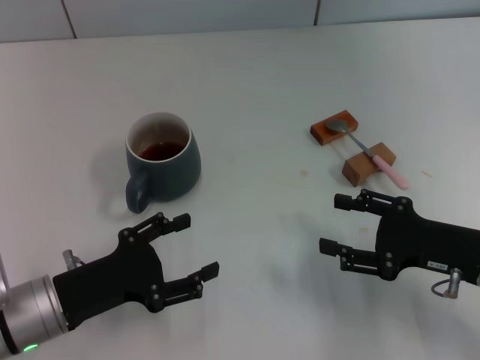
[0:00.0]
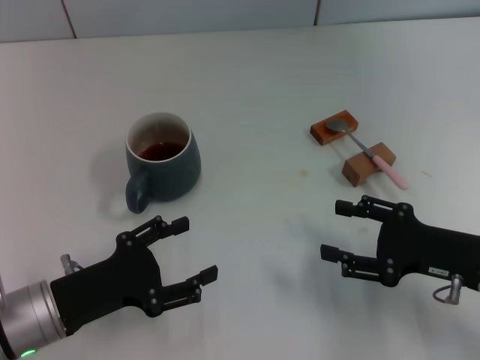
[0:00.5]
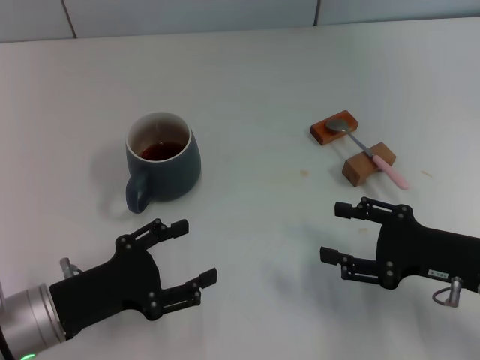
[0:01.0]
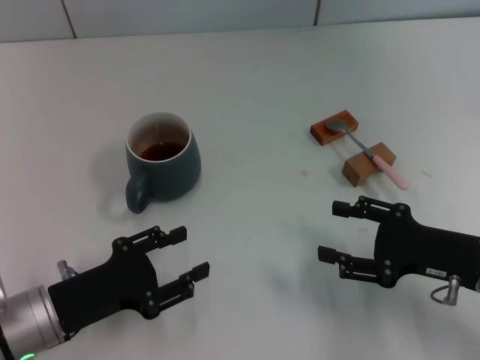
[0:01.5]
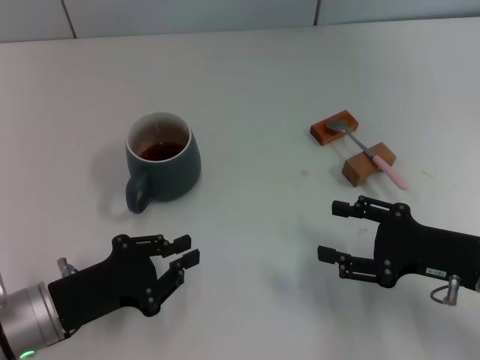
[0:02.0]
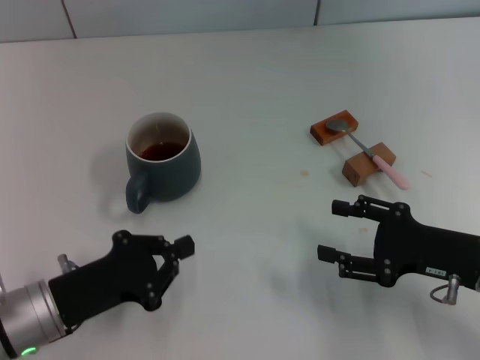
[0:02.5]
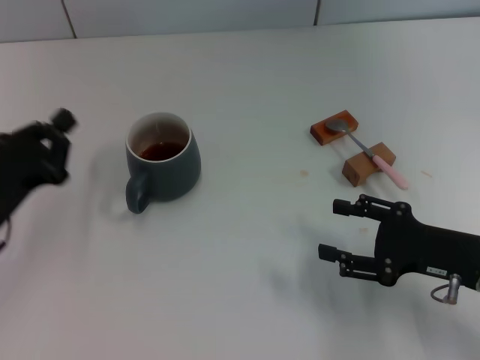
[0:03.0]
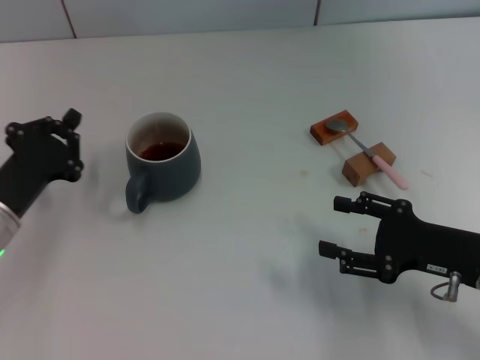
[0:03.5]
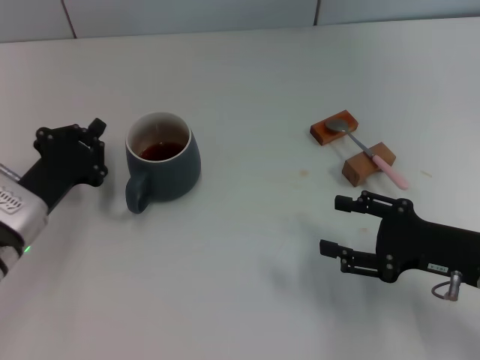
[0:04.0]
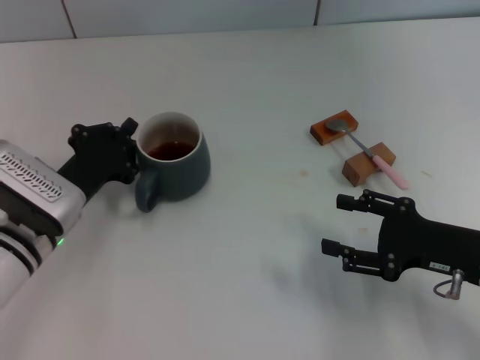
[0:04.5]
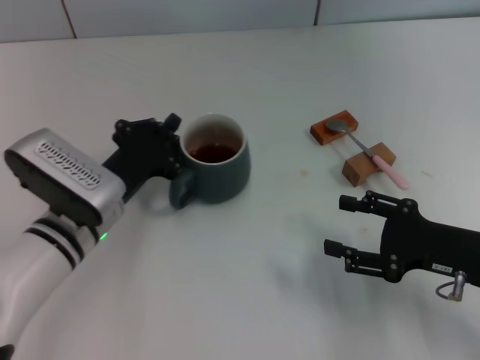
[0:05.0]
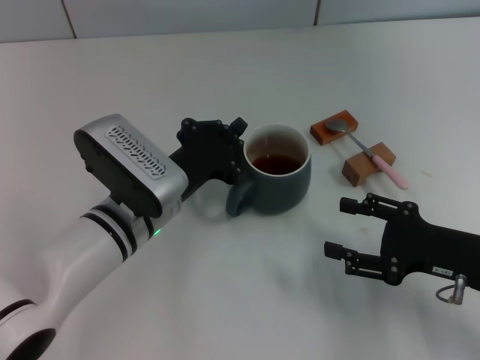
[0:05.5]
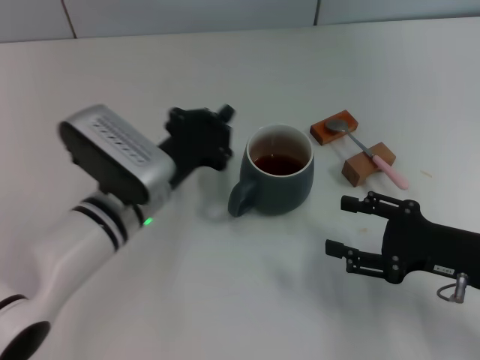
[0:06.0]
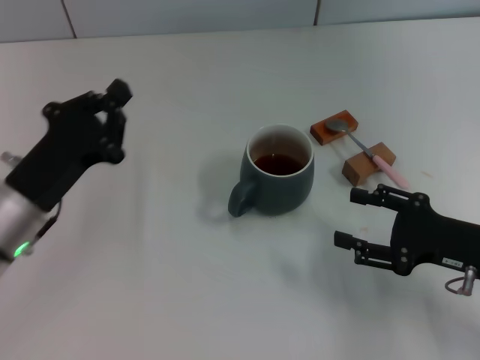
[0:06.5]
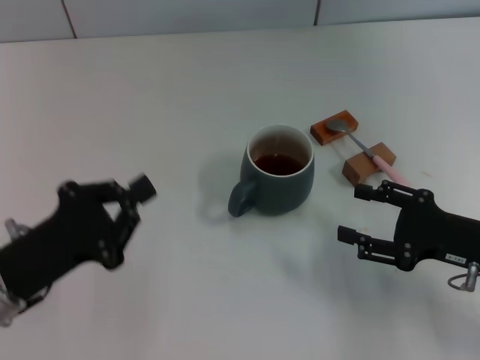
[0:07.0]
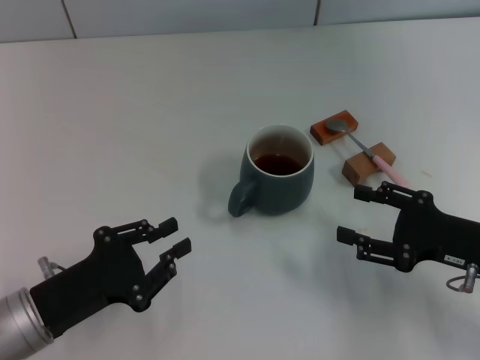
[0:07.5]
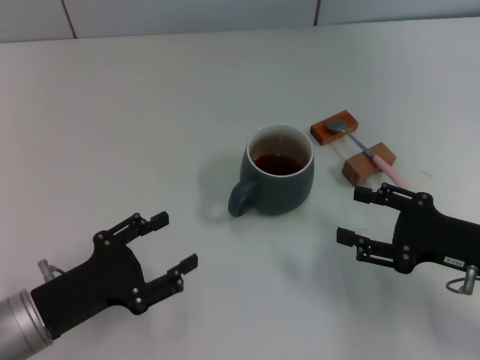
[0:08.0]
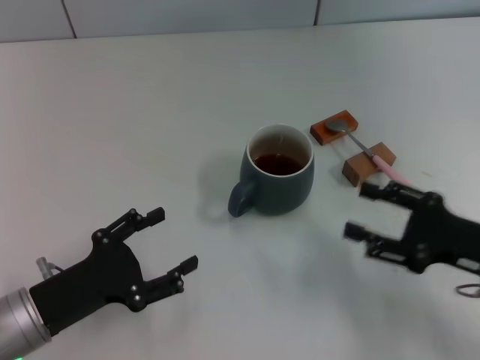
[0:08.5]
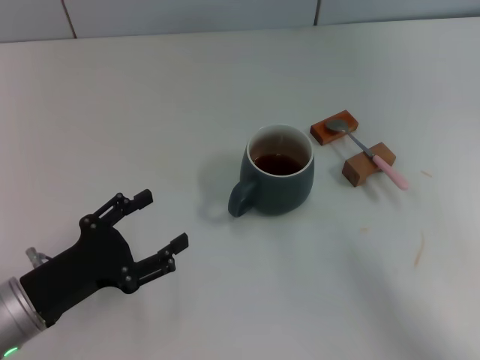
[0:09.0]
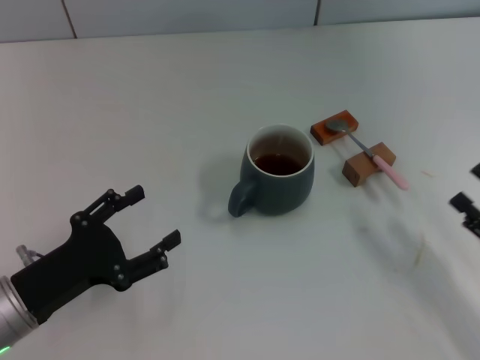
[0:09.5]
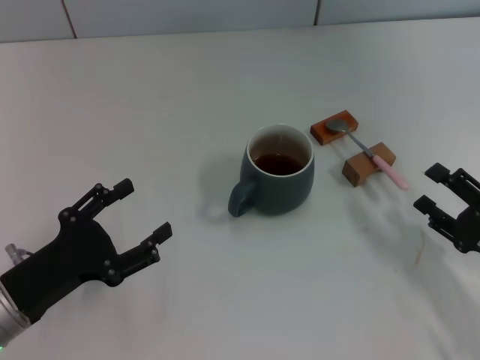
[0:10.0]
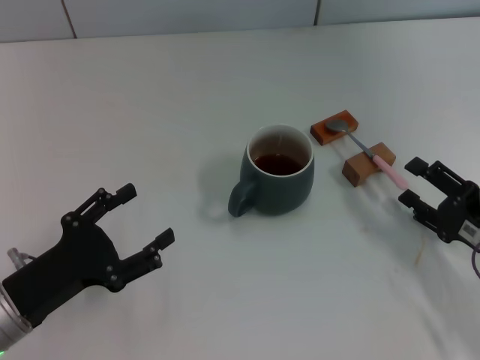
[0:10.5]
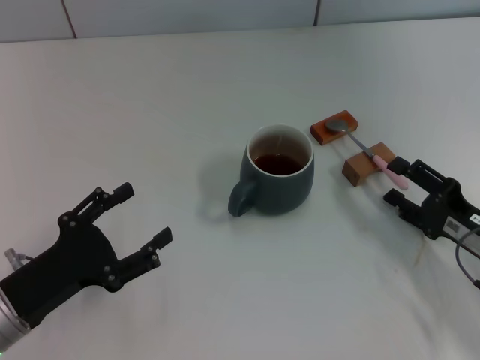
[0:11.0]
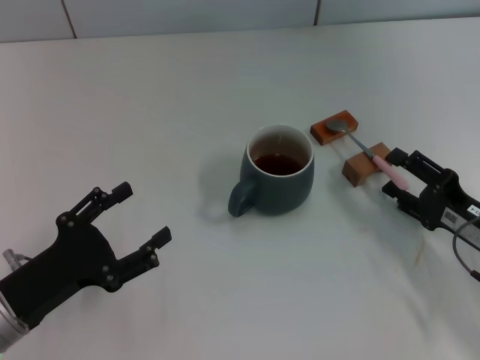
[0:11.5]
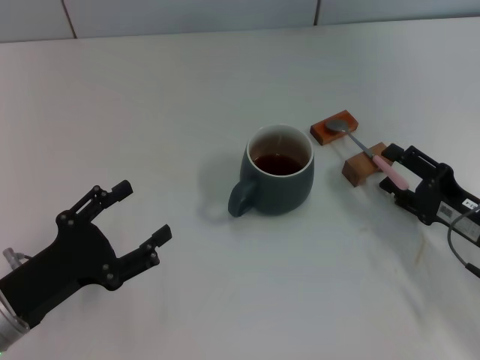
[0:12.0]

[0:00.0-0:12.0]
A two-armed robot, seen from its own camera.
Task of the whole recording: Move the grey cup to the center, lift the pink spoon, stir it three times in the cup, and put the spoon into the cup.
Step, 0:00.0 to 0:06.0: Move the cup with coffee to the center of view with the left gripper.
0:00.0 to 0:02.0: The left gripper closes up.
0:02.0 to 0:04.0: The left gripper shifts approximately 10 cm forward, and closes.
0:04.0 to 0:06.0: The left gripper goes roughly 10 cm to the right.
0:06.0 to 0:08.0: The left gripper goes approximately 15 cm to the left and backward, and opens.
0:08.0 to 0:10.0: The left gripper opens.
0:10.0 to 0:12.0: The right gripper is displaced forward by approximately 5 cm.

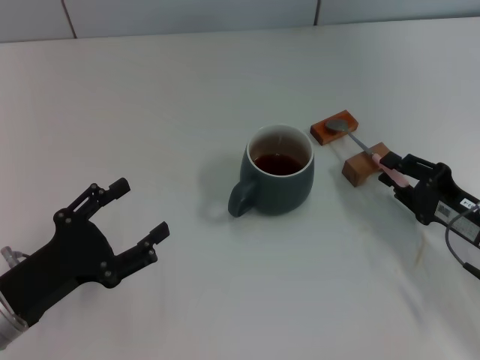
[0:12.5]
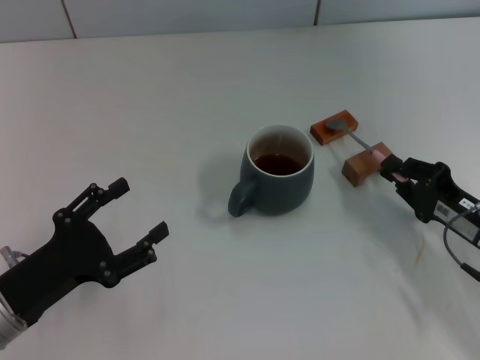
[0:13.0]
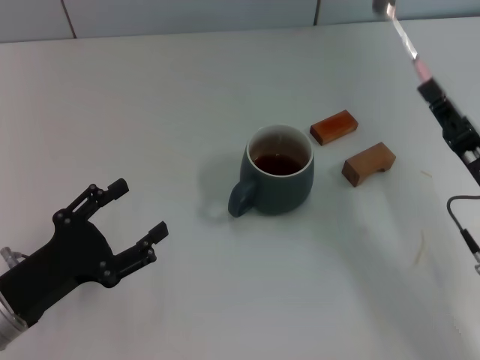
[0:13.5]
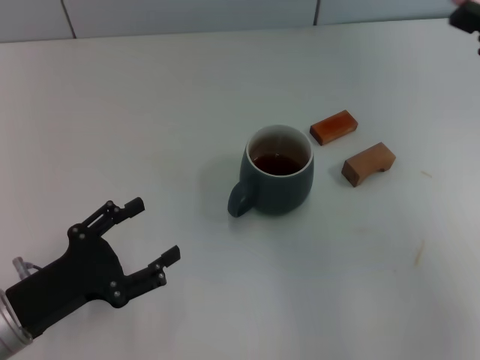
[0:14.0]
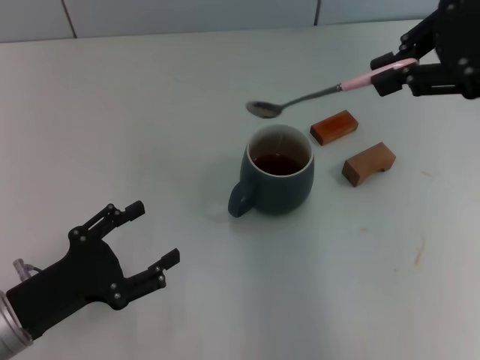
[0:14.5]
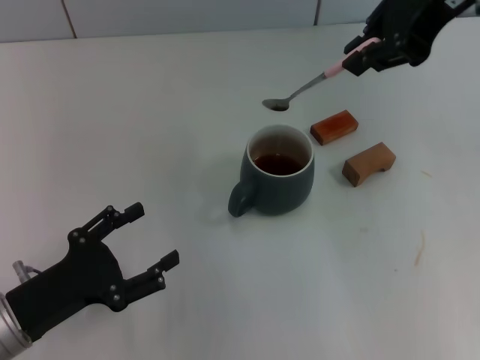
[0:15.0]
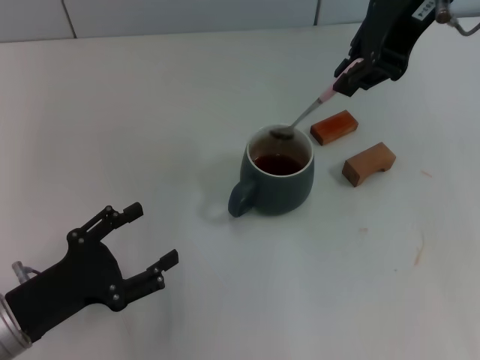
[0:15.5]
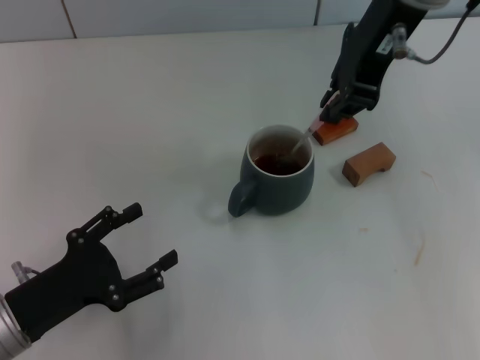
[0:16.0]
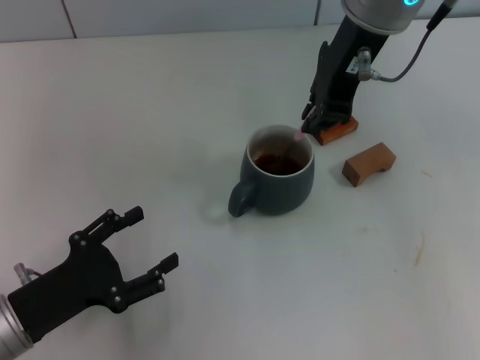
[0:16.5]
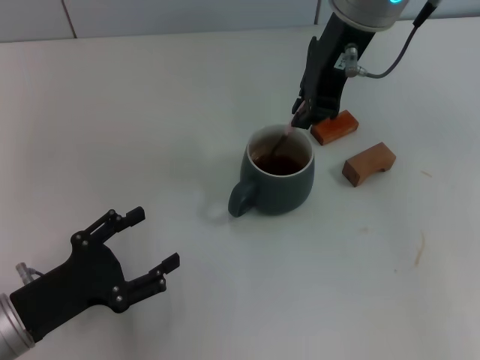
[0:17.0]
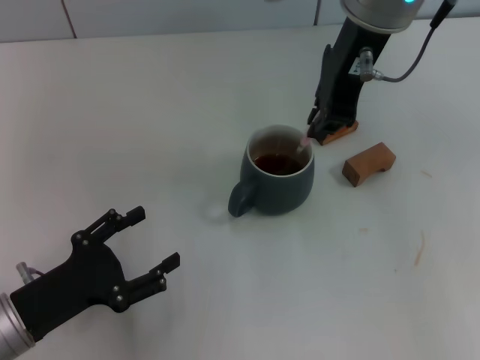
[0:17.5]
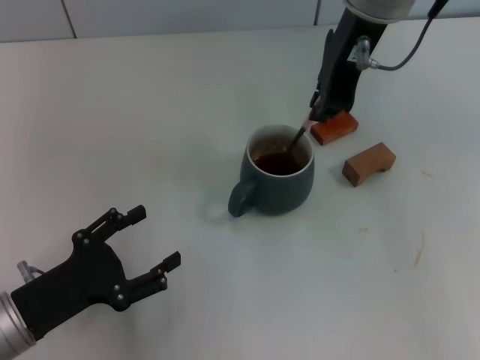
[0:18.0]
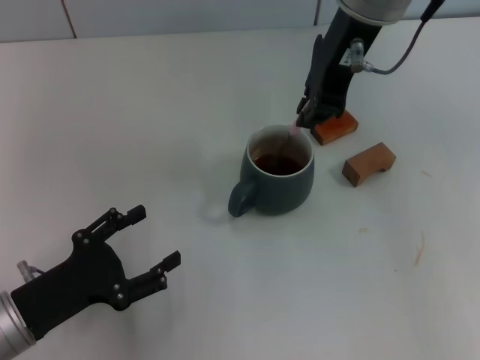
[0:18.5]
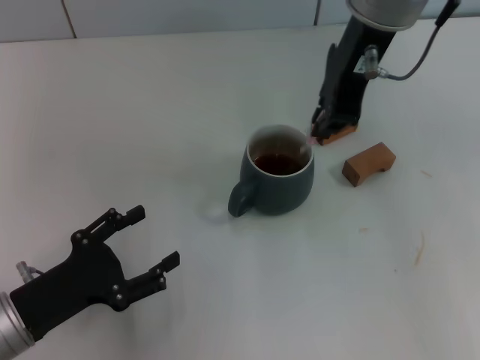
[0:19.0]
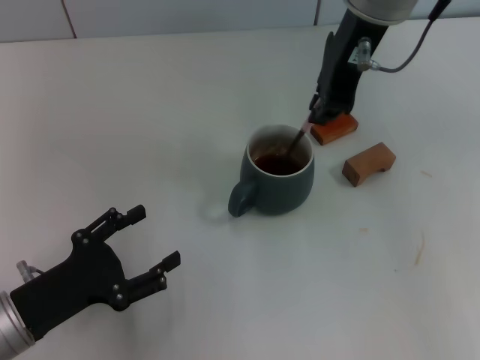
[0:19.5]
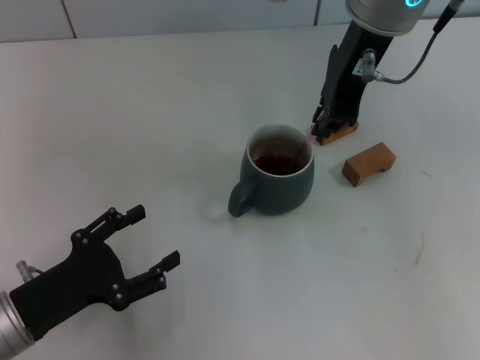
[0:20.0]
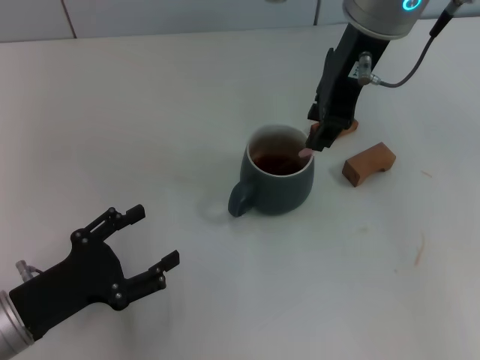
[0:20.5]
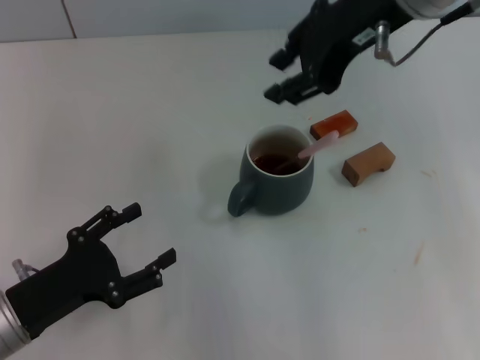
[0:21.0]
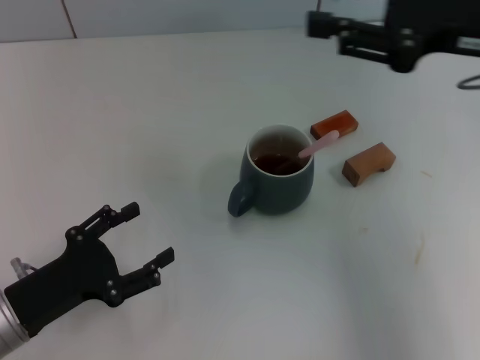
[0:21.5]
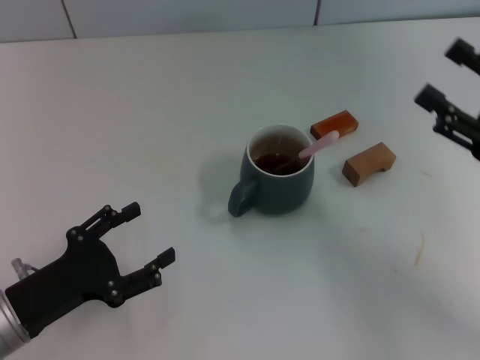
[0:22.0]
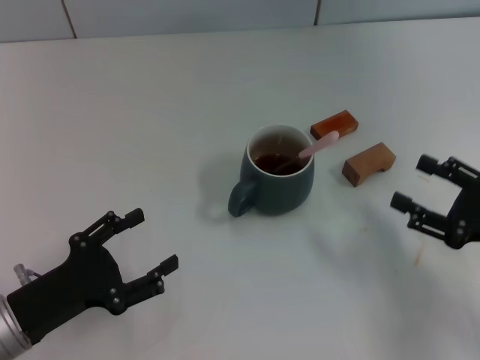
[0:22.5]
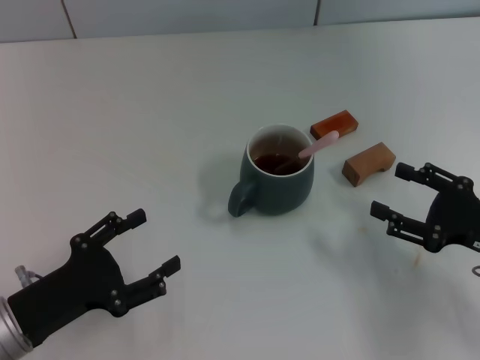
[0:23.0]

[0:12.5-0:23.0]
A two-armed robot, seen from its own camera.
Task of the whole recording: Move the grey cup to the center, lift the pink spoon, stir it three times in the cup, and put the spoon into the cup.
Step, 0:14.0 to 0:20.5: Stir the coffee in the cup with the right gripper.
0:12.5 to 0:14.5: The right gripper shifts roughly 30 cm upward, and closes.
0:14.5 to 0:16.5: The right gripper heads to the left, covering roughly 15 cm.
0:16.5 to 0:19.0: The two grippers keep their place.
0:19.0 to 0:21.0: The right gripper opens.
0:21.0 to 0:23.0: The right gripper moves downward, to the right and backward, some 35 cm, and opens its fingers.

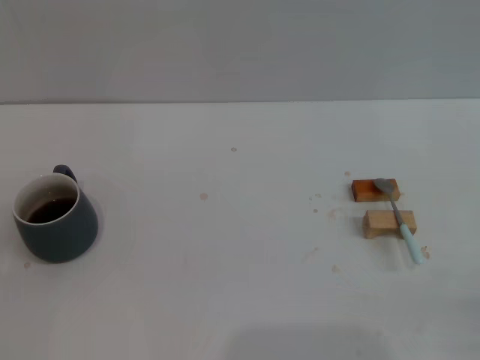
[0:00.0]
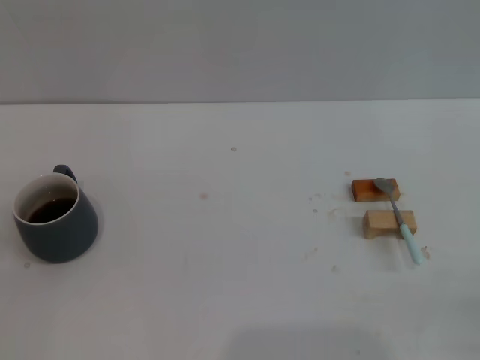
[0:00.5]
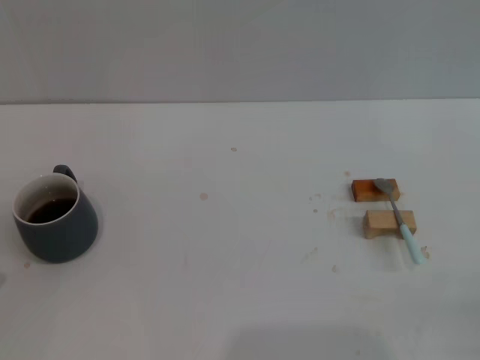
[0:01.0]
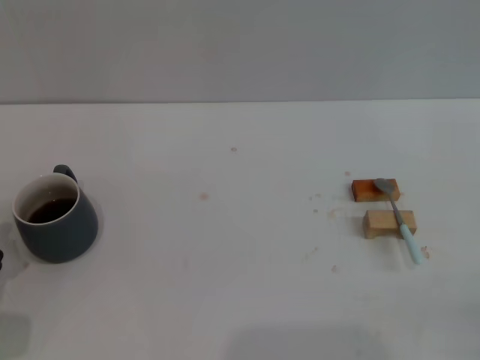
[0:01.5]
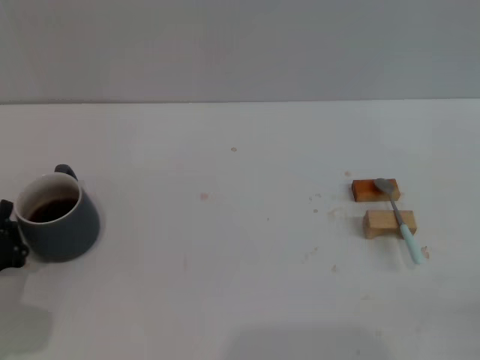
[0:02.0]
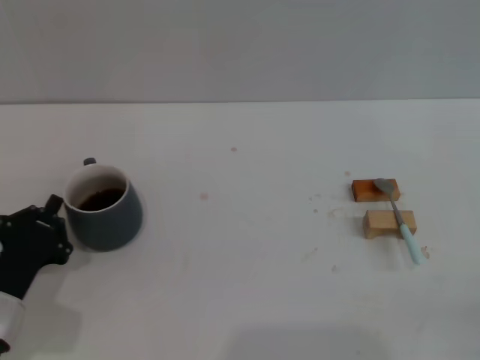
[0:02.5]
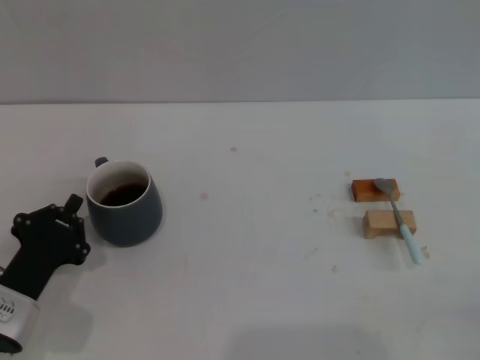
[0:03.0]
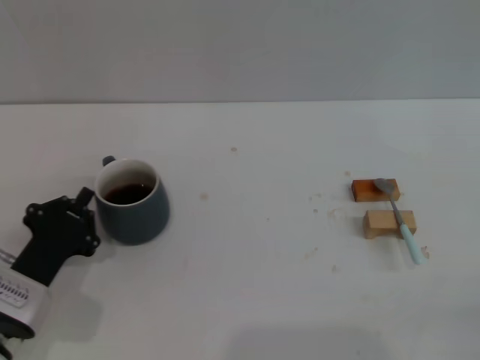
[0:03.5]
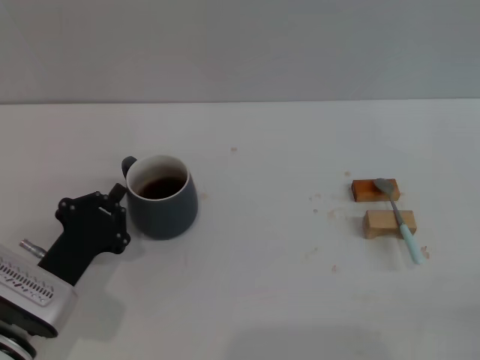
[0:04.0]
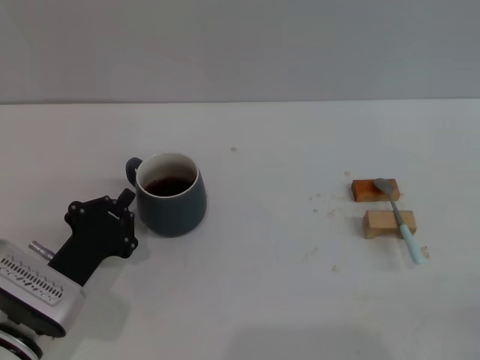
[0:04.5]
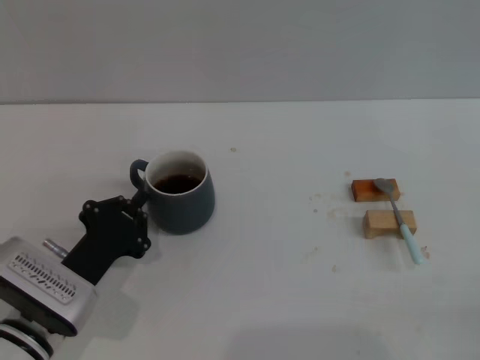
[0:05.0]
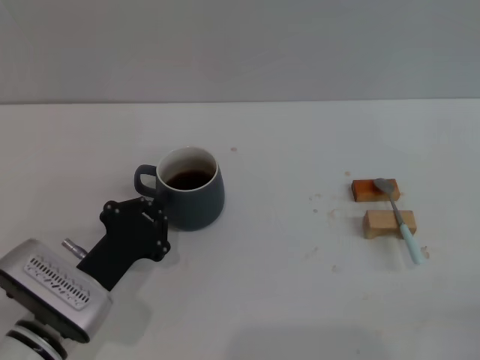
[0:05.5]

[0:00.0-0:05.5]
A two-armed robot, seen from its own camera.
Task of the whole recording: Move the grey cup to the center, lift the blue spoon, stir it three times in the cup, and put the spoon into the cup.
0:00.0 to 0:02.0: The left gripper is displaced forward by some 10 cm.
0:02.0 to 0:03.5: The left gripper changes place by about 5 cm.
0:03.5 to 0:05.5: The left gripper moves to the right, approximately 5 cm.
